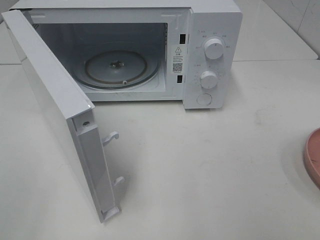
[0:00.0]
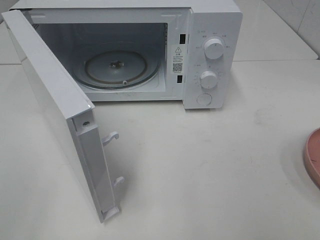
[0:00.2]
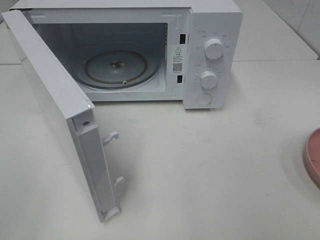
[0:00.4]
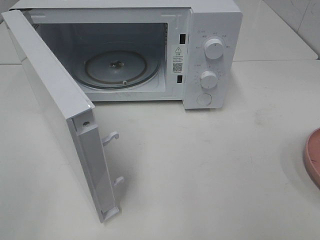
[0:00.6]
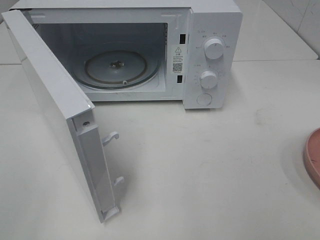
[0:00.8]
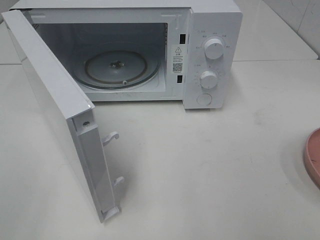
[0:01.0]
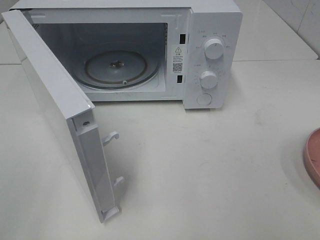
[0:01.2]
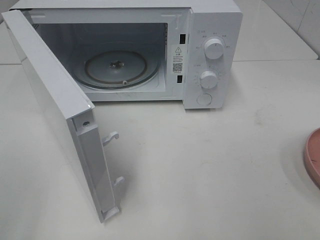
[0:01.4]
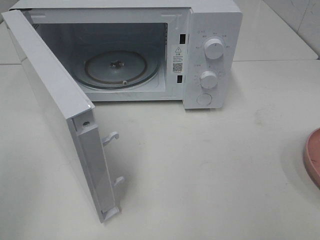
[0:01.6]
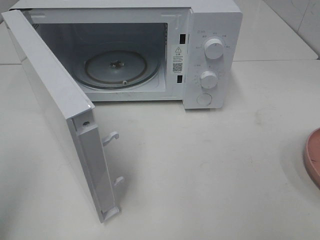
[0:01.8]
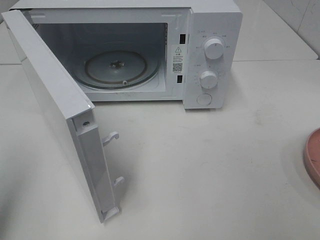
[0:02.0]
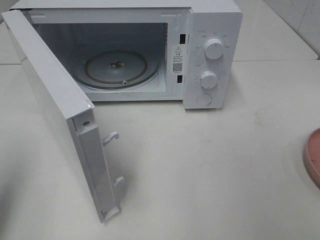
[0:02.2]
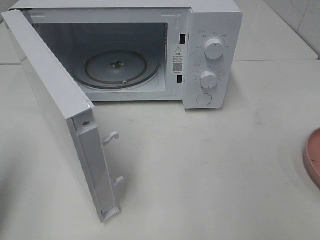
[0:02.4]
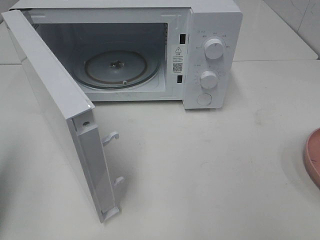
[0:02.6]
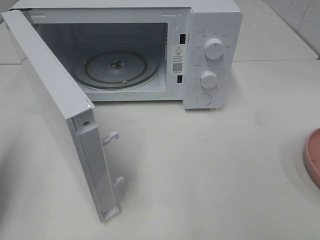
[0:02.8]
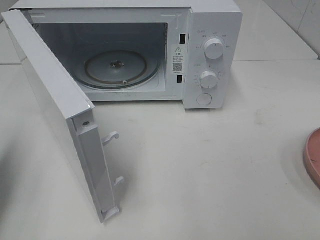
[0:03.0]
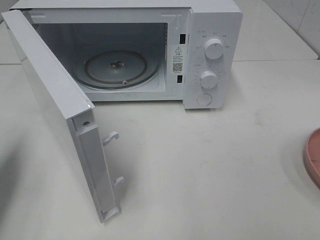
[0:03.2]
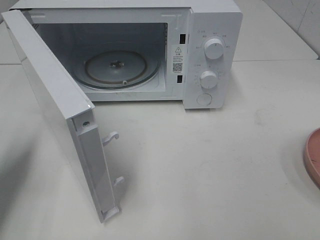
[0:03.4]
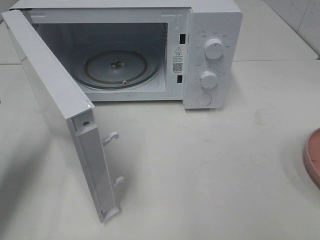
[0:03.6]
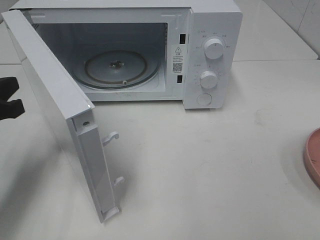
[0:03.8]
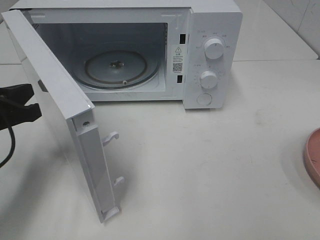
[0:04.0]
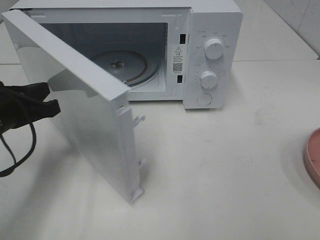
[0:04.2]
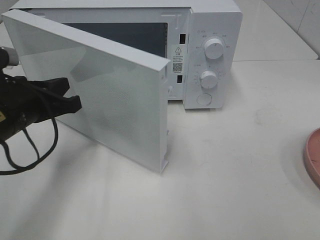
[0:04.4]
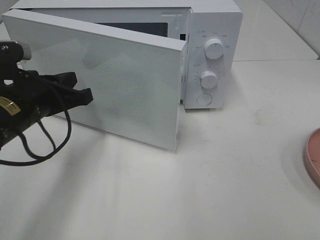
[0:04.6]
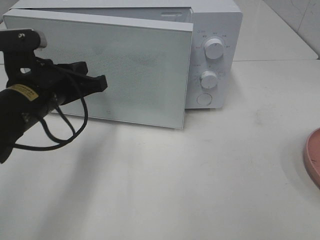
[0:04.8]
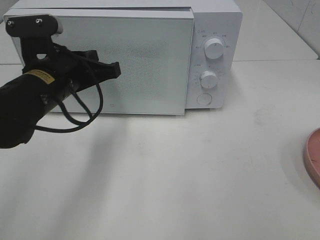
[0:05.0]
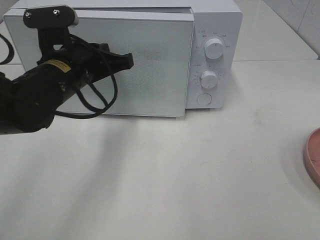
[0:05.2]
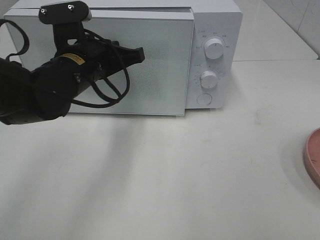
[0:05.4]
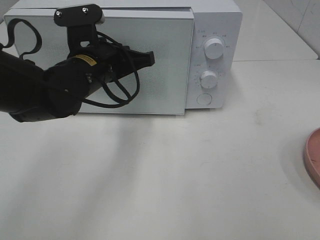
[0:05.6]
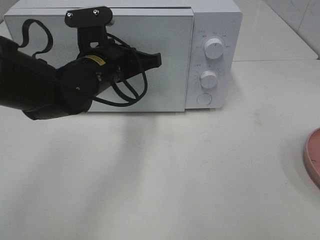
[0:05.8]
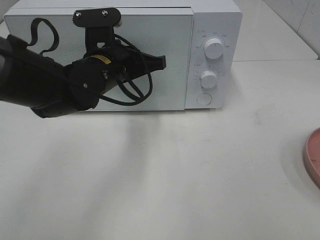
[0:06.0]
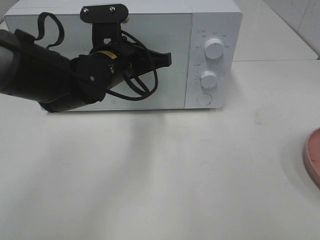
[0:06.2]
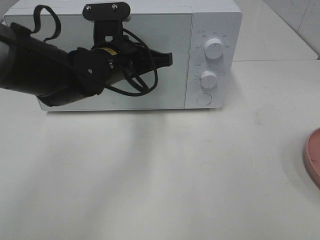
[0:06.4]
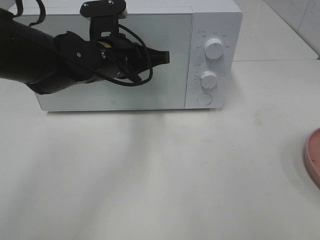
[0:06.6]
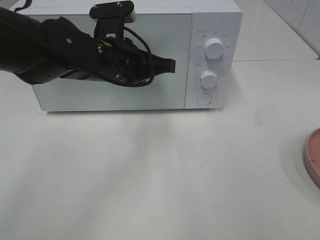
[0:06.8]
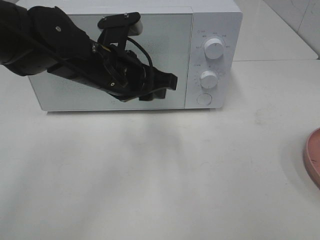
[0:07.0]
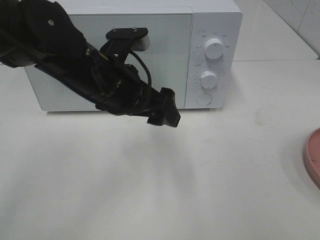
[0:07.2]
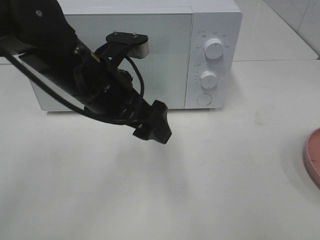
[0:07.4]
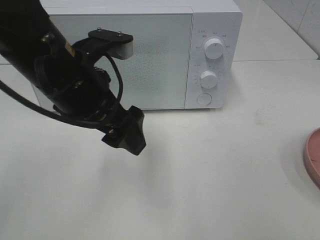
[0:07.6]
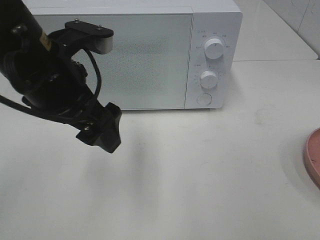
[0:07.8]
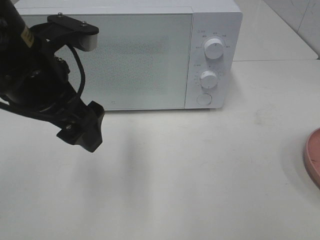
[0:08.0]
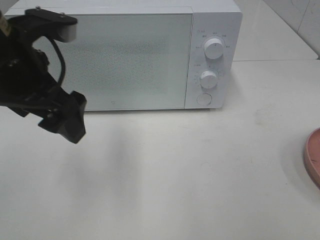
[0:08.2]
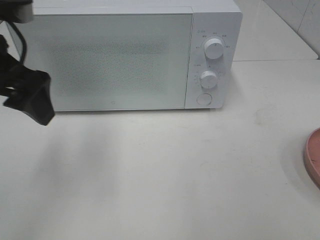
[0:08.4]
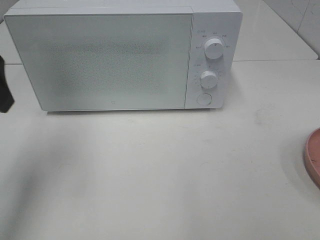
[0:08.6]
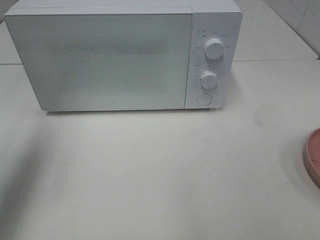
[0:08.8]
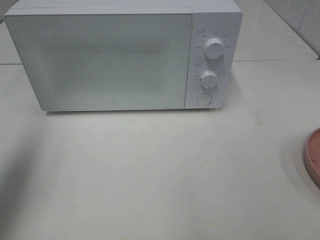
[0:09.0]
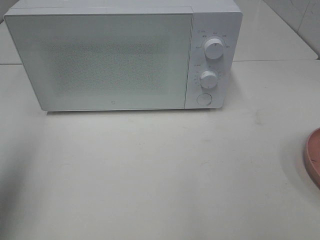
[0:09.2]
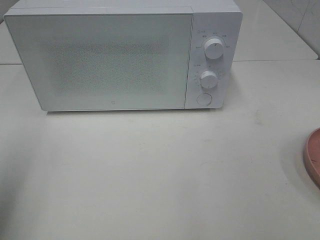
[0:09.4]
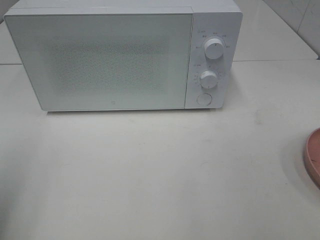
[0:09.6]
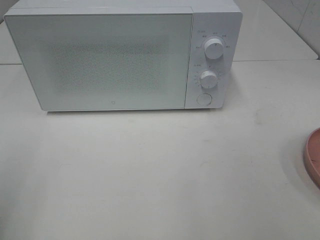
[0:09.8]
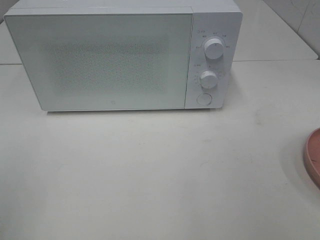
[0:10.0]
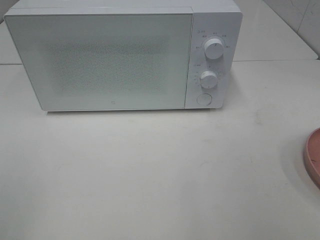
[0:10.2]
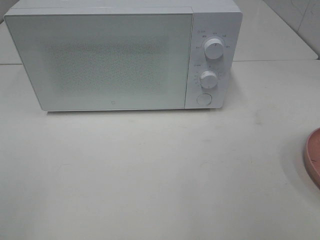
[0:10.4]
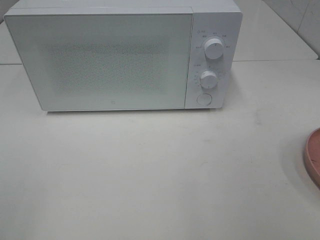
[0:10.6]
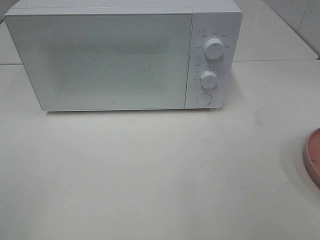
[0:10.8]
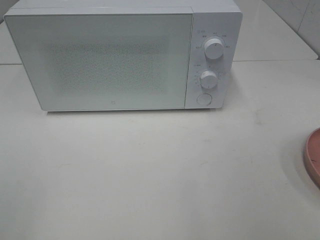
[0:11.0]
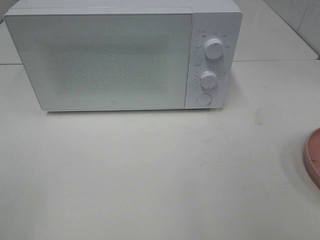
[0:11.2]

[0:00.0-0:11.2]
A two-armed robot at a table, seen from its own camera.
Task of the whole recording: Heat the burger.
Step, 0:00.0 to 0:06.8: Left hand: close the microwave door.
0:01.6 to 0:03.2: The left gripper goes some 20 cm forward and downward, and closes its fingers.
0:03.2 to 0:04.8: The left gripper shifts about 15 cm to the right and forward.
0:04.8 to 0:06.4: The left gripper travels to the right and forward by some 10 cm.
0:06.4 to 0:08.0: The left gripper is displaced backward, upward and to the left by about 15 cm, and opens.
0:08.0 to 0:09.6: The left gripper heads to the left and backward, covering approximately 25 cm.

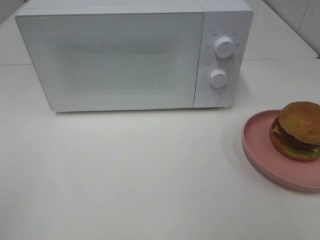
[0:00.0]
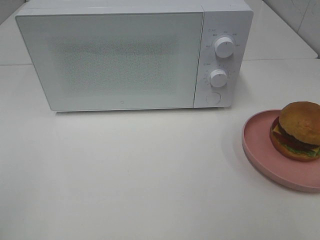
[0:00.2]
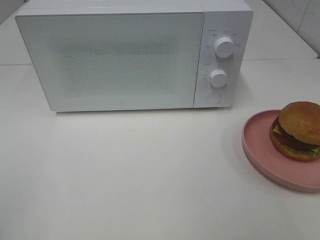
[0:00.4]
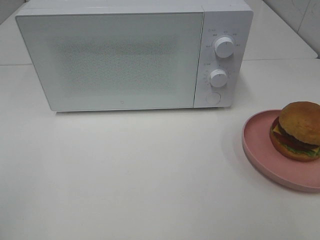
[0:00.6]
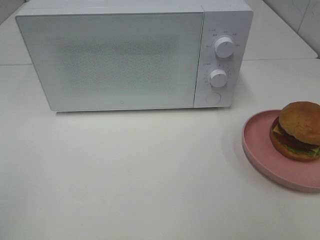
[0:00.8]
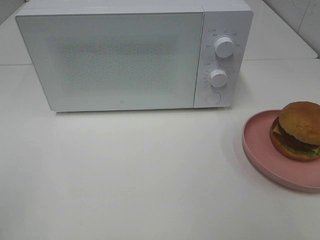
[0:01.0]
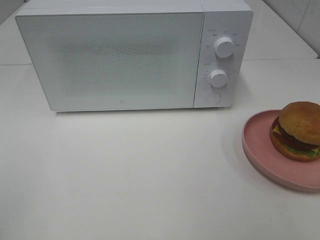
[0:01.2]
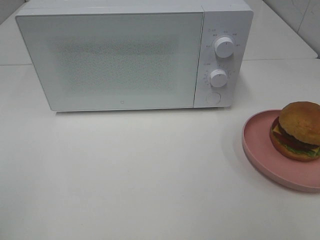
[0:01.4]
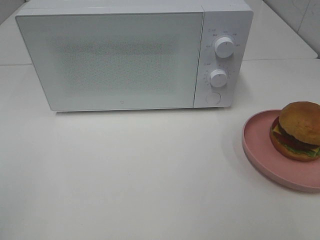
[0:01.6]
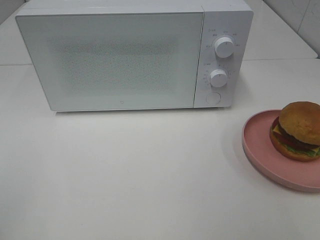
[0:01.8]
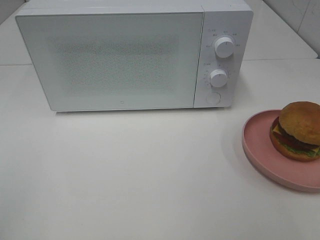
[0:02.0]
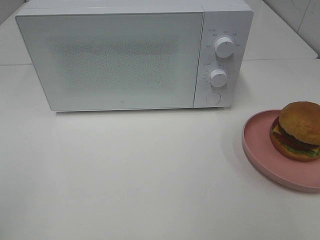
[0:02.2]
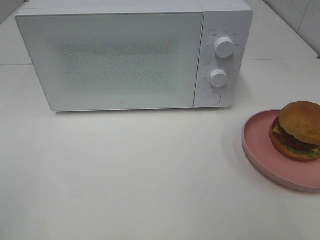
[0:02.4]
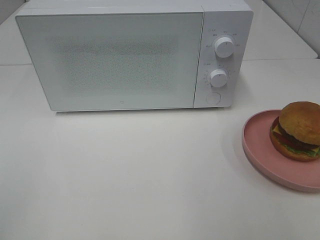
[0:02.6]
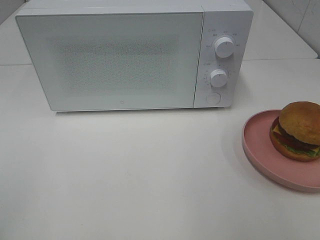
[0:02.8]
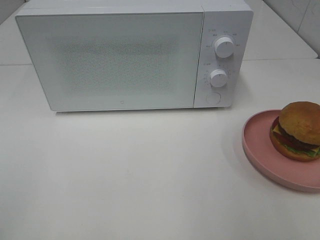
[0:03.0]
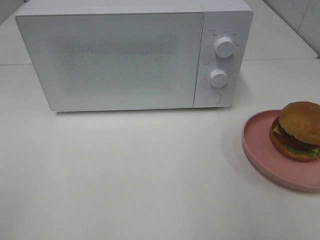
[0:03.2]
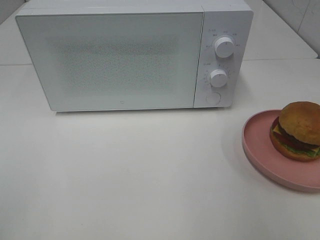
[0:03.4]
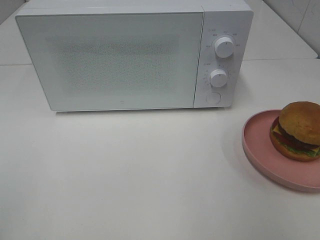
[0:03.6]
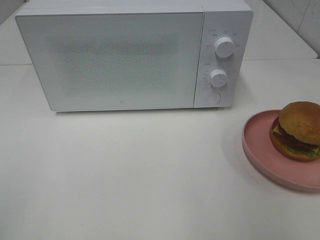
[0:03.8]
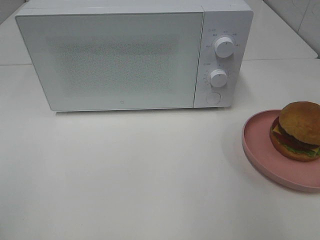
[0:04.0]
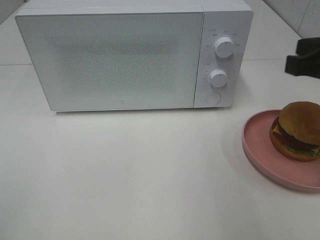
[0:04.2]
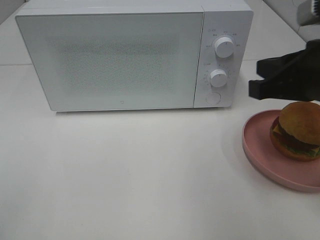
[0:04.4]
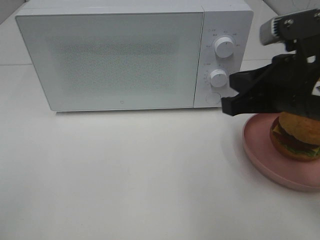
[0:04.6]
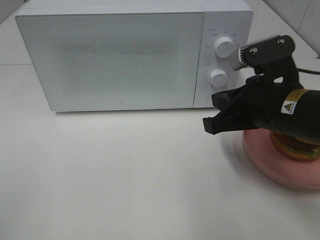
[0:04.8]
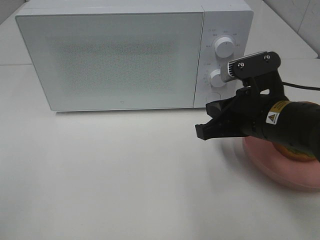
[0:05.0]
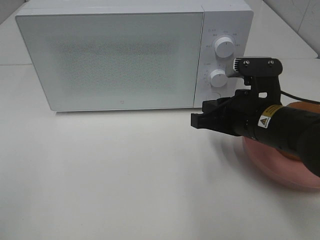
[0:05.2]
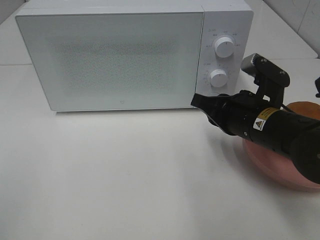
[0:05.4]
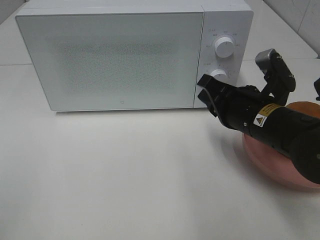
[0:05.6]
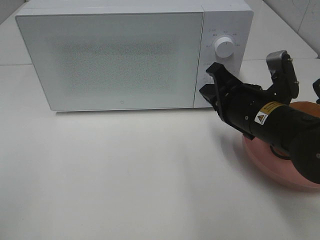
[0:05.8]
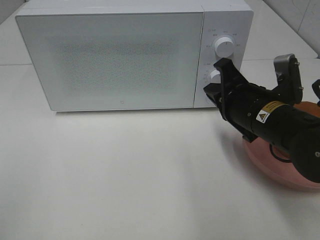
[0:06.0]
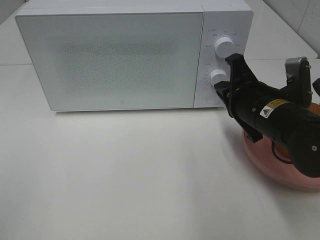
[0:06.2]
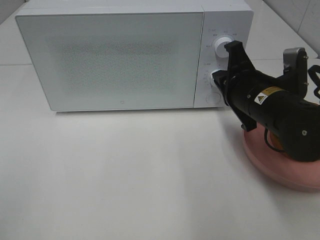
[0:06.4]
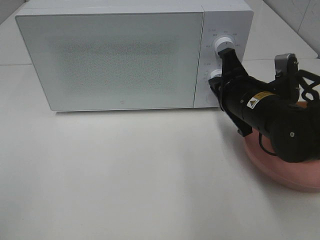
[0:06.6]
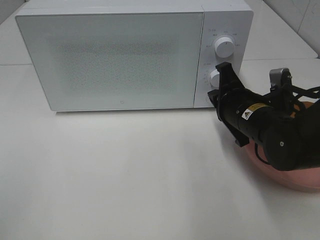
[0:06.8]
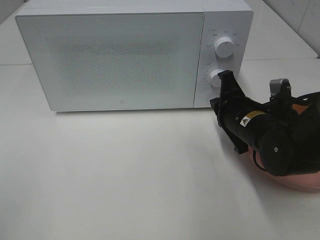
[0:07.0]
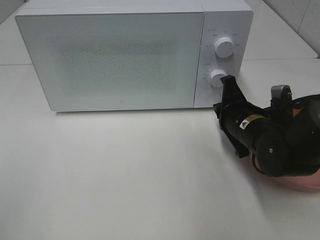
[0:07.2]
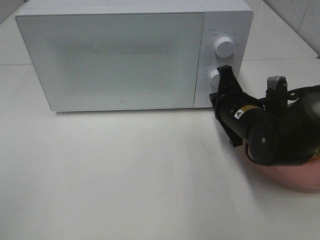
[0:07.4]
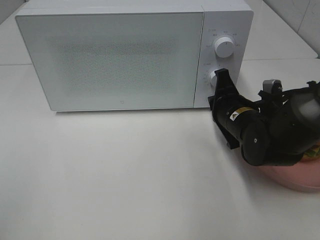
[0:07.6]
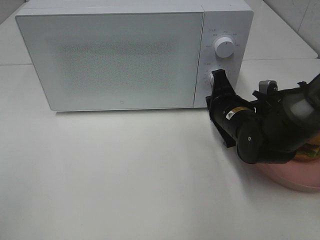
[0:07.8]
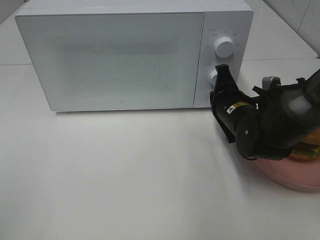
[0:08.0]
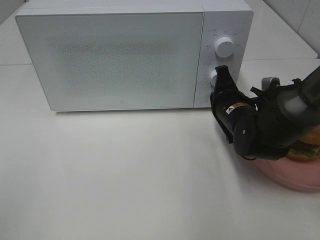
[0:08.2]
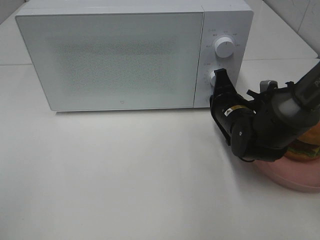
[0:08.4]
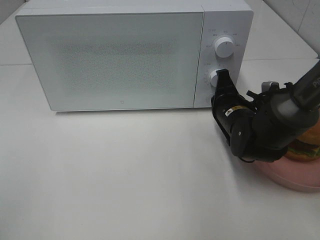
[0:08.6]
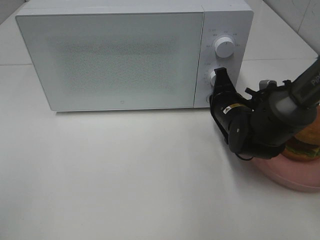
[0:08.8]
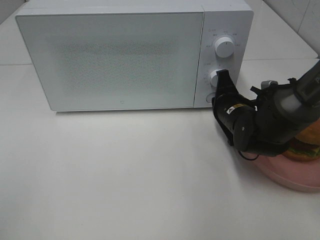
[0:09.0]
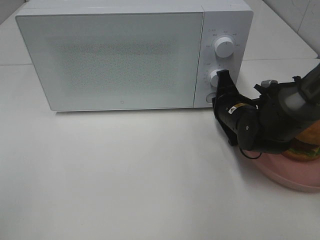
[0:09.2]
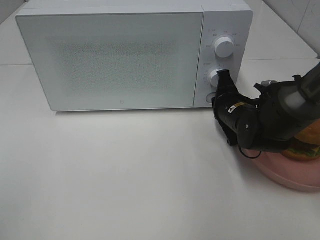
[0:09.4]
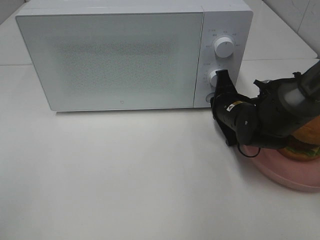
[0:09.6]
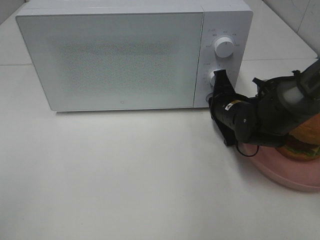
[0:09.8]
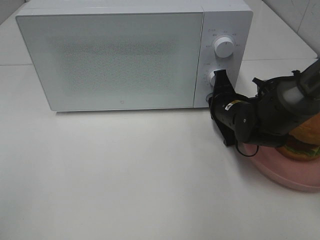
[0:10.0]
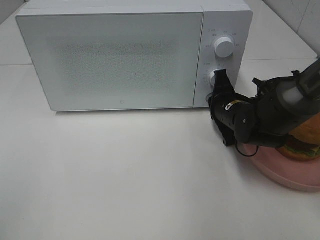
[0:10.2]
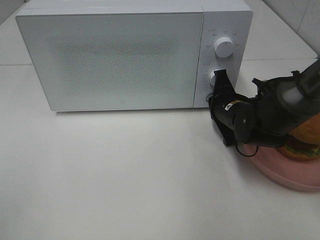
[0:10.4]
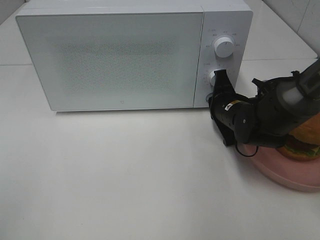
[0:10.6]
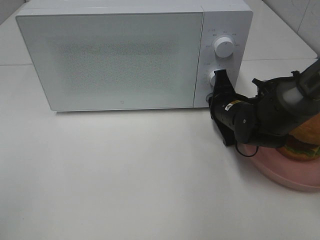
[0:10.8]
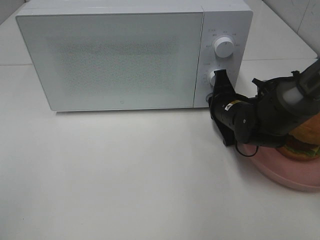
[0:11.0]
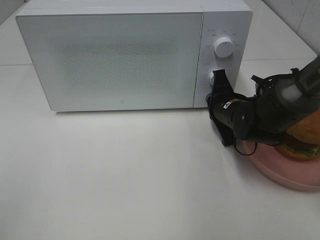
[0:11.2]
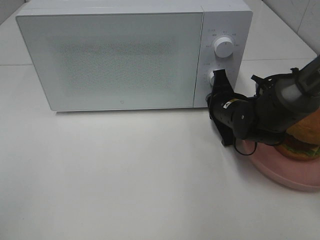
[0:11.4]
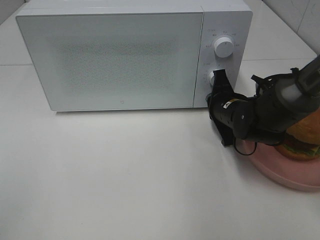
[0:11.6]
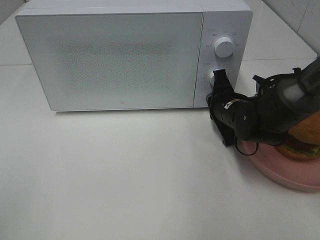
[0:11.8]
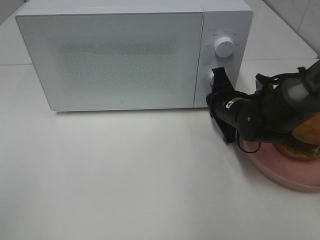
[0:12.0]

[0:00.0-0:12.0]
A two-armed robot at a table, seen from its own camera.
Task of the whole recording: Heat the burger.
0:00.0 to 0:01.6: Neither gripper changes place.
0:03.0 to 0:04.4: The right gripper goes roughly 20 cm forward, to the left and downward, and closes up.
0:04.4 to 0:06.0: The right gripper goes approximately 10 cm downward.
0:06.0 to 0:07.6: The right gripper is displaced downward and forward by roughly 10 cm.
0:07.6 to 0:10.4: The grippers stay close to where they were, moving slightly.
0:10.4 to 0:12.0: Both grippers stay put.
